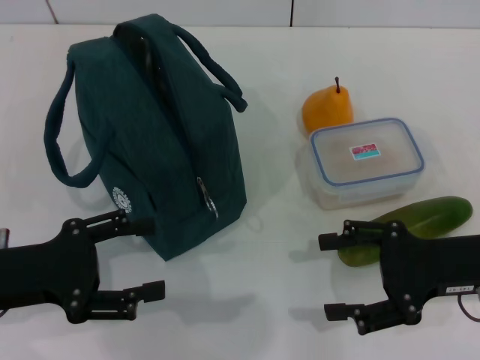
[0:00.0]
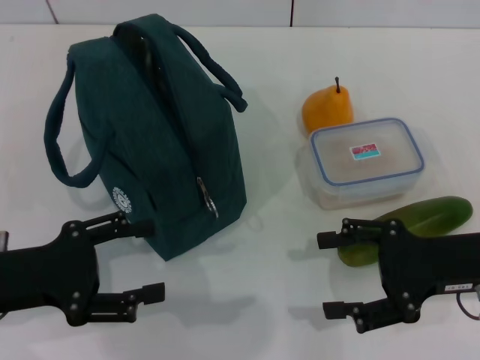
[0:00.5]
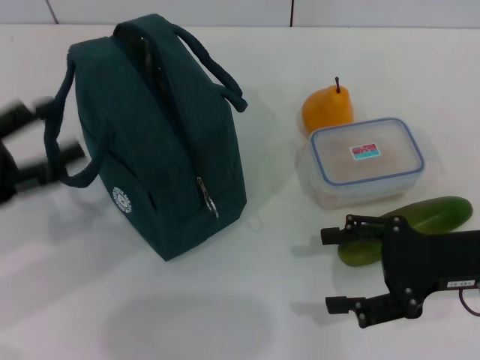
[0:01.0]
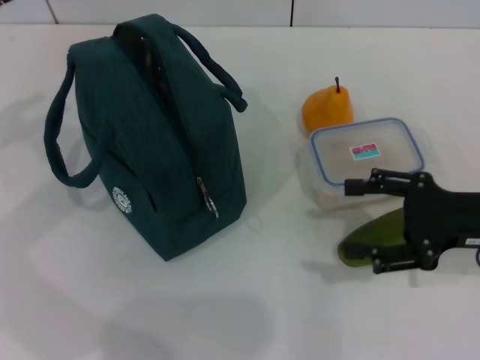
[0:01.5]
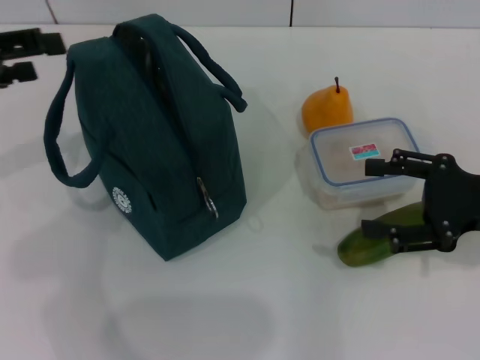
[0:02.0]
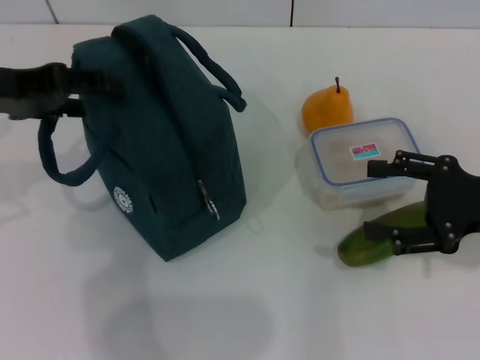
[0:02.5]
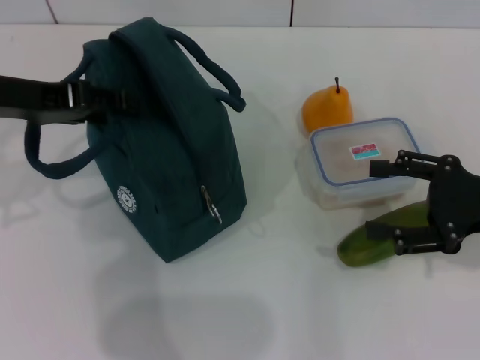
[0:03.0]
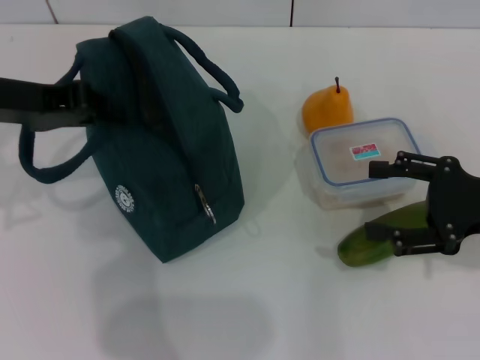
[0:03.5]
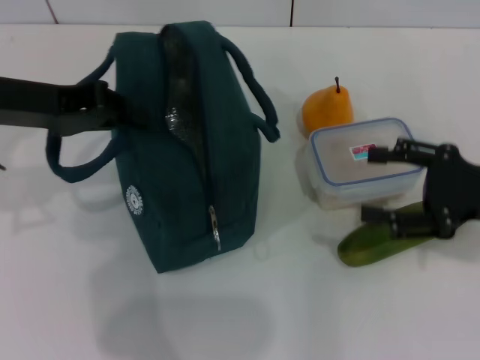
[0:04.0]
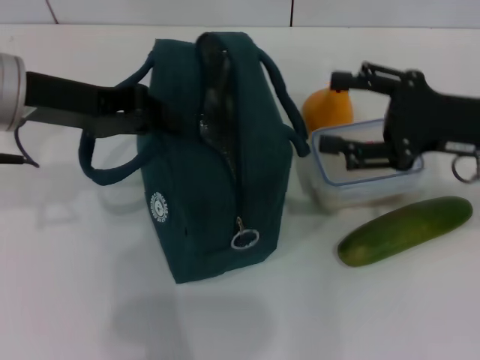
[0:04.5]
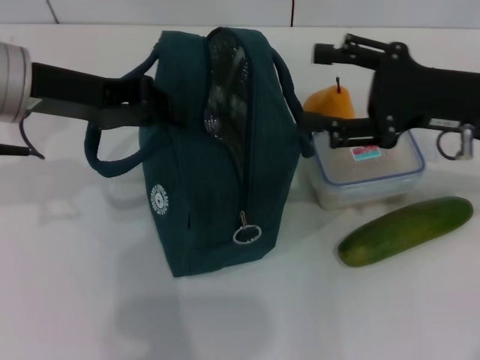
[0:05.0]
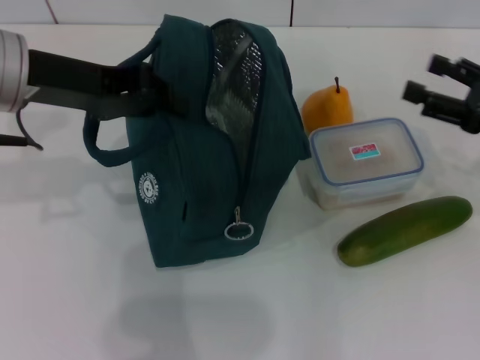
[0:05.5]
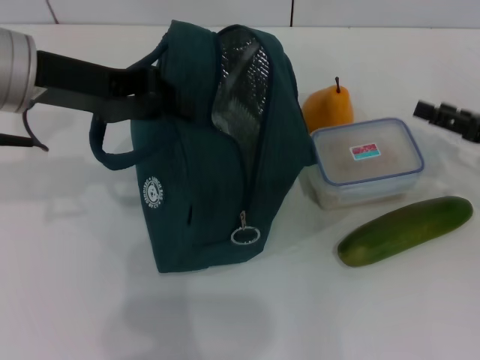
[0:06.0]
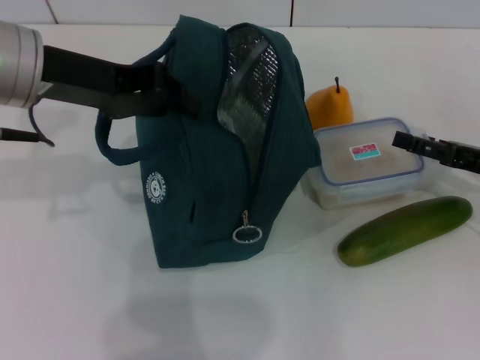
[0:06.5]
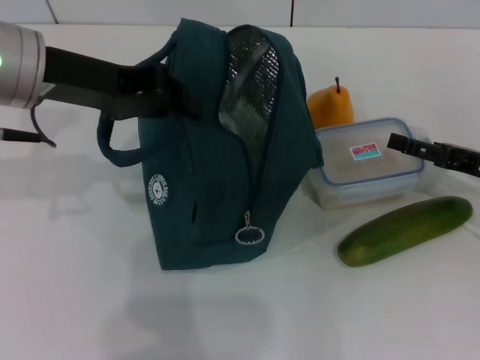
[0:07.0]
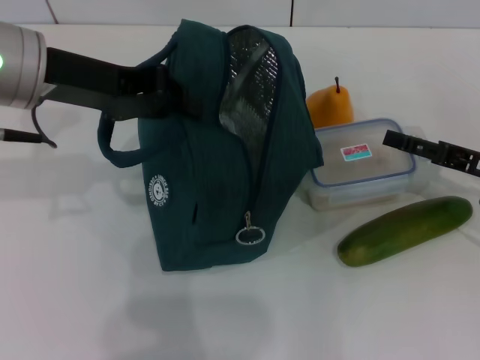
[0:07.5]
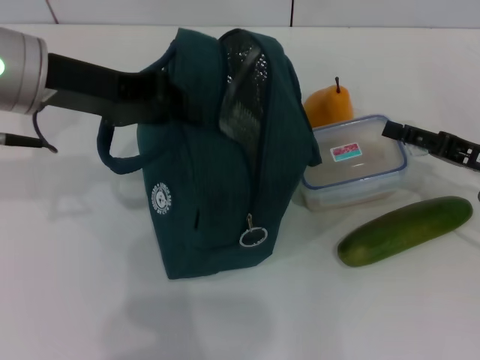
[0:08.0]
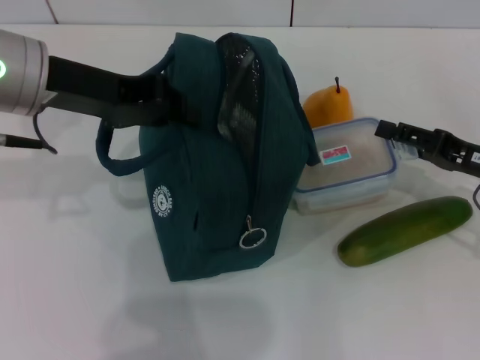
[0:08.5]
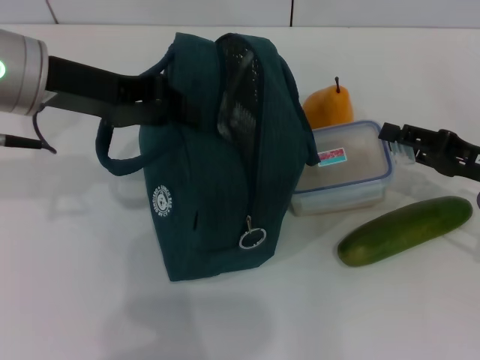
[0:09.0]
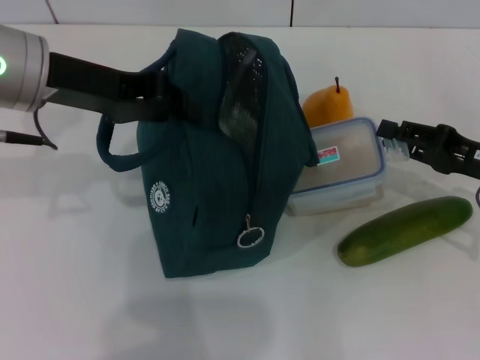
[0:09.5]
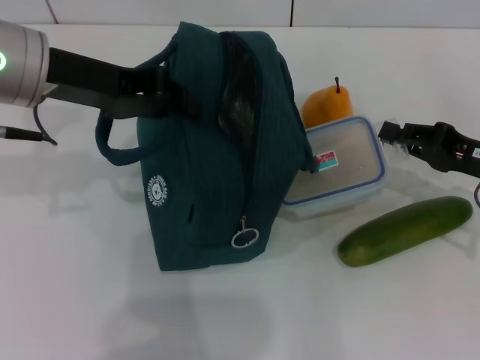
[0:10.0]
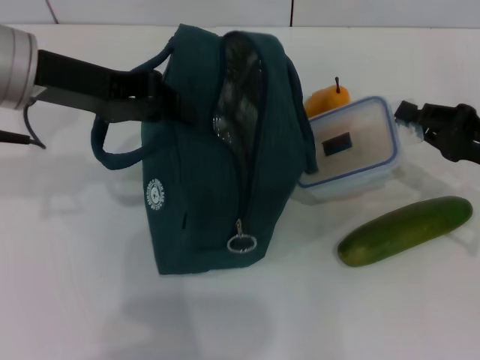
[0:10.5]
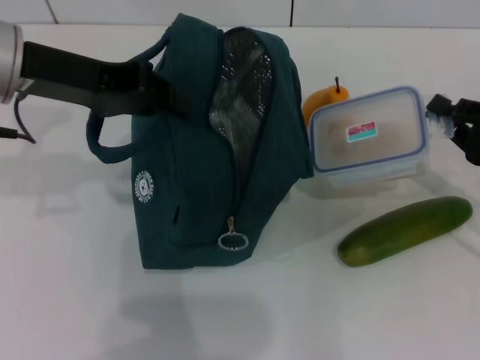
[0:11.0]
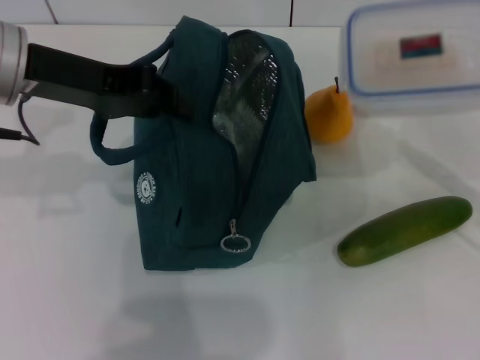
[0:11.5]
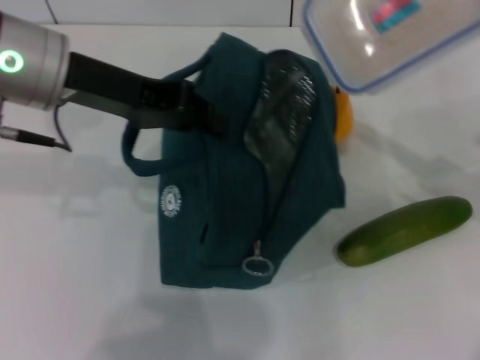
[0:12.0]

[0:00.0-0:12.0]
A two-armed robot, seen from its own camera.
Step, 0:00.0 to 0:03.0: Hold the lunch bag with your left hand.
Step, 0:03.5 to 0:10.0: Pick up the lunch box with your right hand.
0:00.0 to 0:02.0: The right gripper moves some 5 cm. Meanwhile the left gripper shifts about 15 cm upward and forward.
0:02.0 to 0:04.0: The left gripper shifts some 5 cm to the right, and closes up.
0:04.0 to 0:06.0: The right gripper changes place by some 5 cm.
0:06.0 to 0:08.0: The grippers stay close to where they were, moving slightly.
0:08.0 to 0:10.0: The right gripper closes its fingers.
0:10.0 to 0:12.0: The right gripper moves upward, some 10 cm.

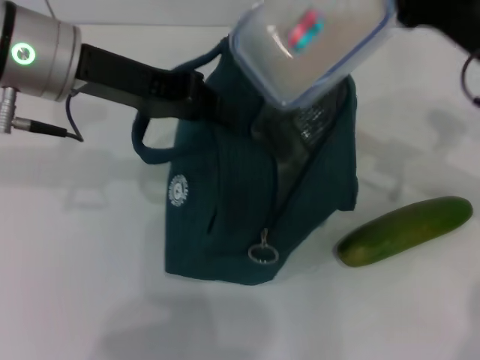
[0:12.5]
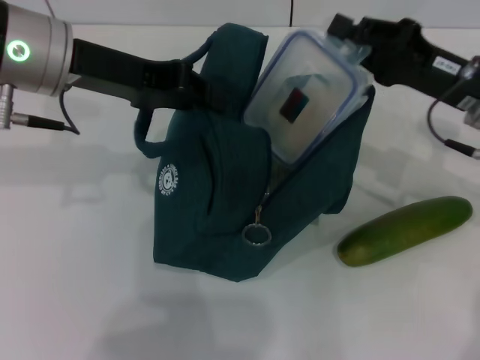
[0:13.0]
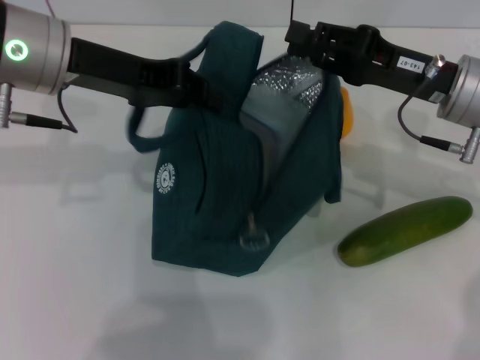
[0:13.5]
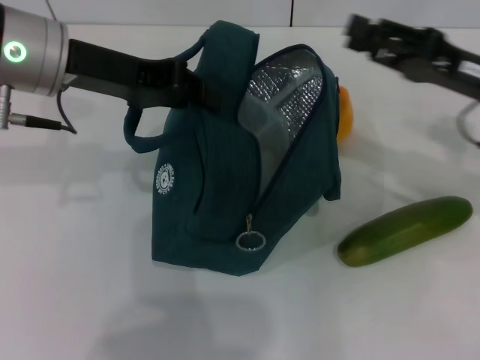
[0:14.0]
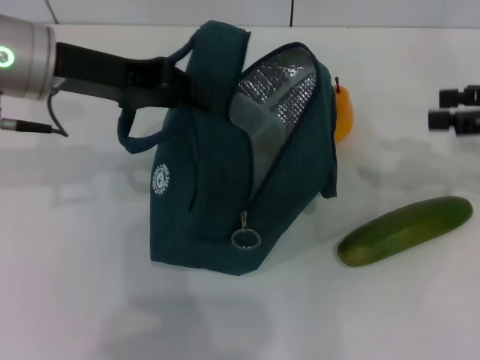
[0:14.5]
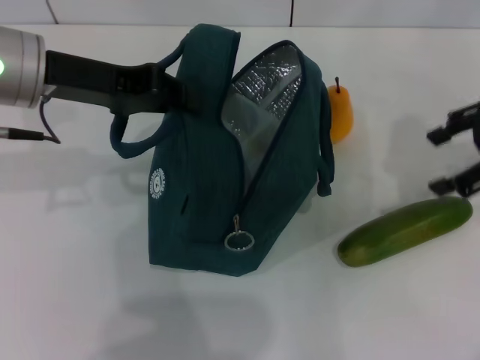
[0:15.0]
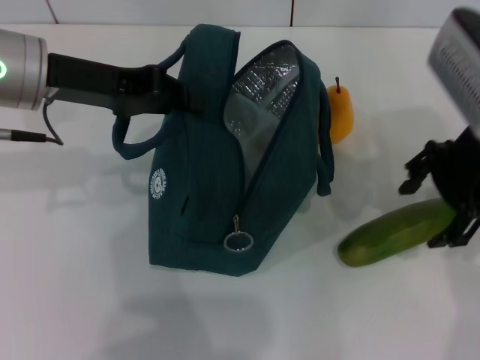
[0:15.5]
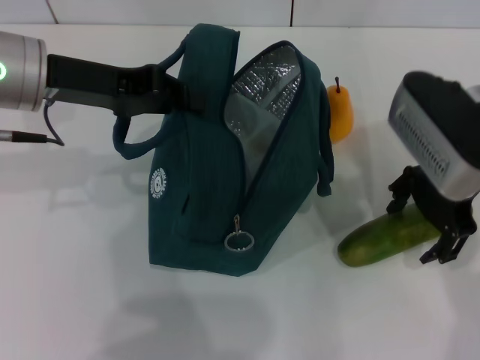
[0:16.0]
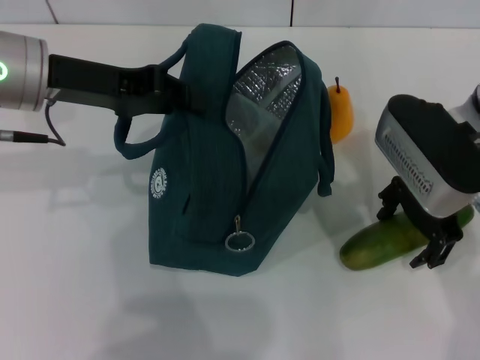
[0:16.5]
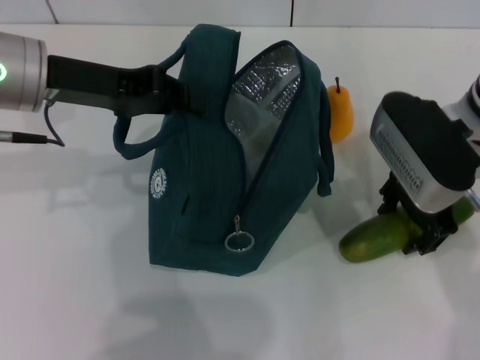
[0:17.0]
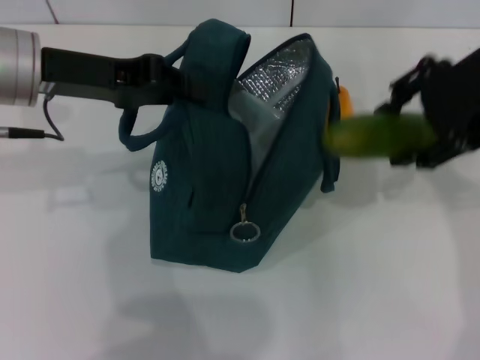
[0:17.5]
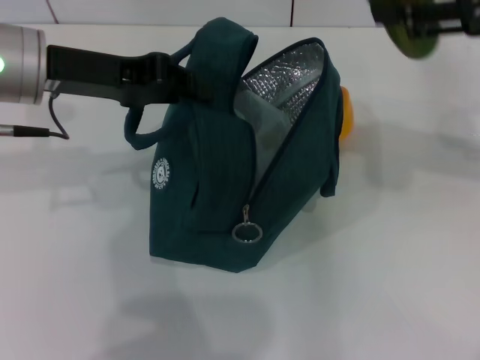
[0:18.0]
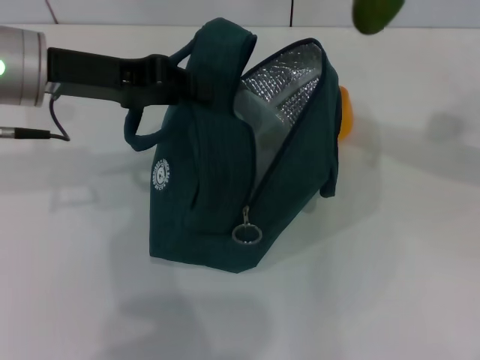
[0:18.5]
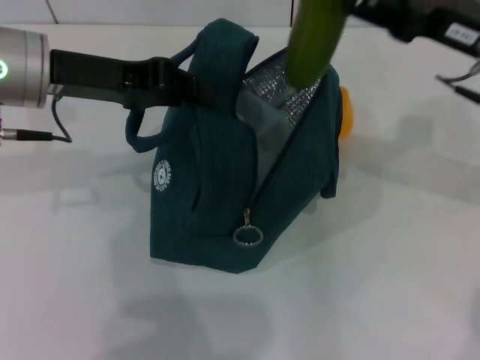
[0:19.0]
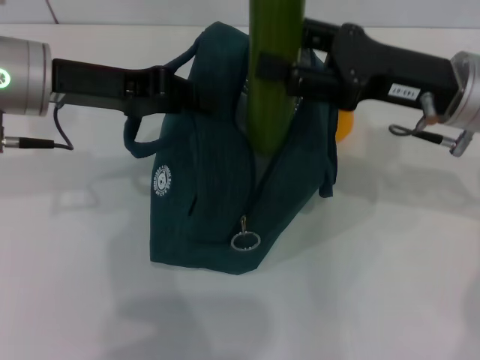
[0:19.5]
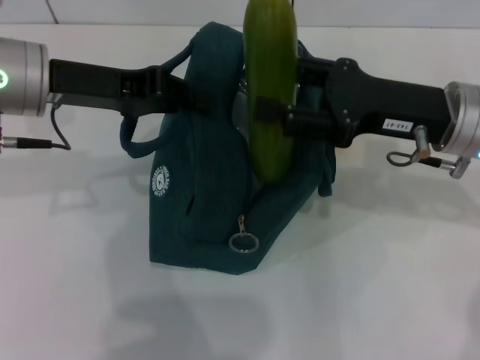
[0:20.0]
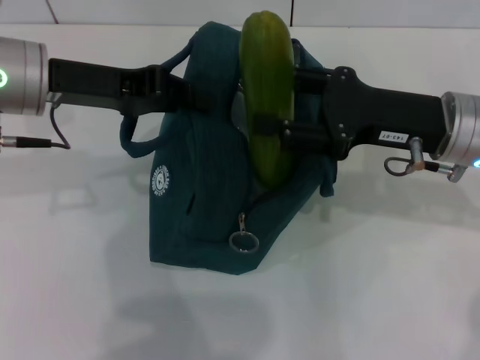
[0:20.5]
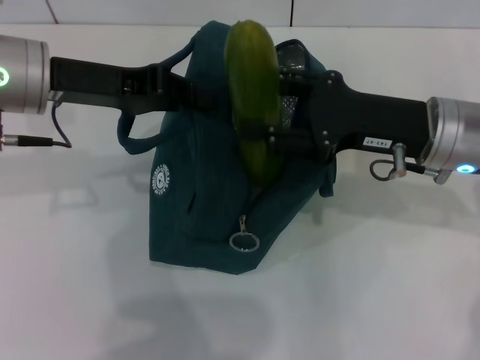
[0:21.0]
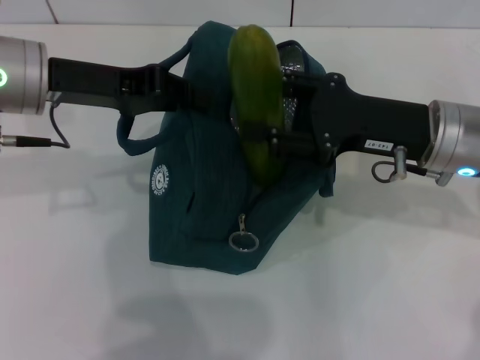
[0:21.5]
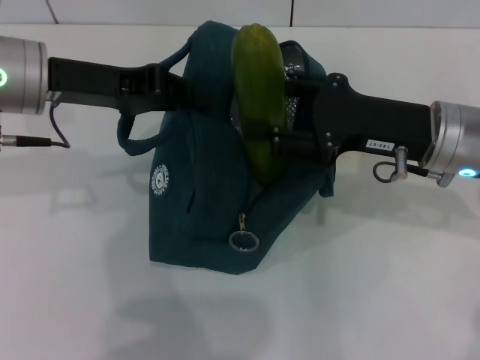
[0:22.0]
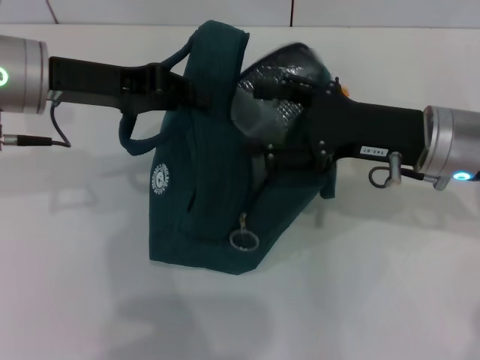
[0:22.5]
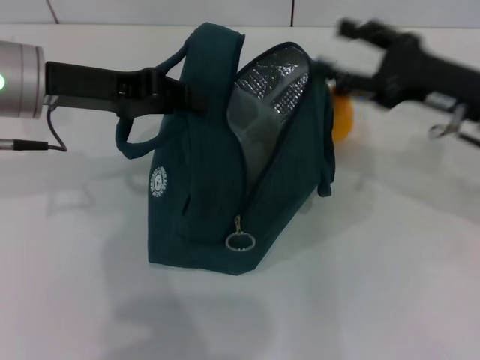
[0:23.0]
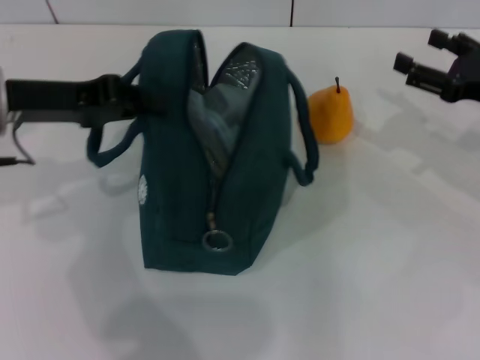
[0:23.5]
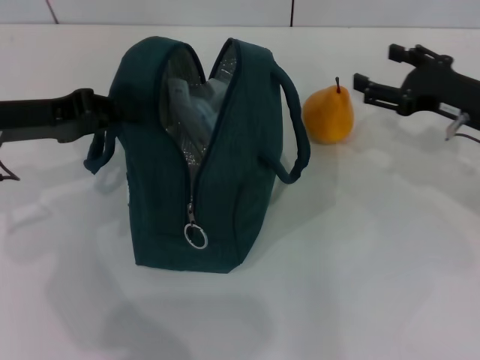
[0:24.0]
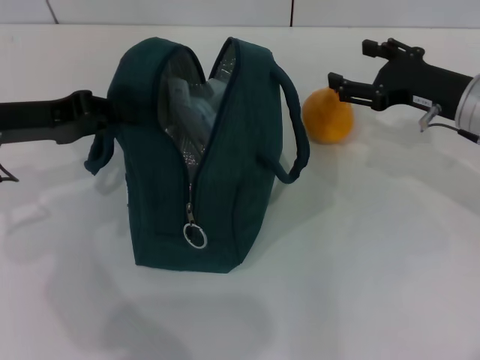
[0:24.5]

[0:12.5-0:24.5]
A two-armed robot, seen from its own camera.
Step, 0:14.0 to 0:16.5: Pick up the cucumber with your right hand.
Step, 0:17.0 to 0:22.5: Put the cucumber into the lunch bag with your right hand.
0:12.5 to 0:14.5: The right gripper travels to the right by approximately 10 cm, and opens.
0:14.5 to 0:16.5: The right gripper travels to the left by roughly 15 cm.
0:16.5 to 0:18.5: The right gripper heads to the right and upward, covering some 10 cm.
0:18.5 to 0:20.5: The right gripper travels downward and to the left by some 10 cm.
0:20.5 to 0:22.5: The grippers make only small movements.
0:22.5 to 0:24.5: The left gripper is displaced to the left and downward by about 10 cm. The right gripper moves to the right and forward, roughly 10 cm.

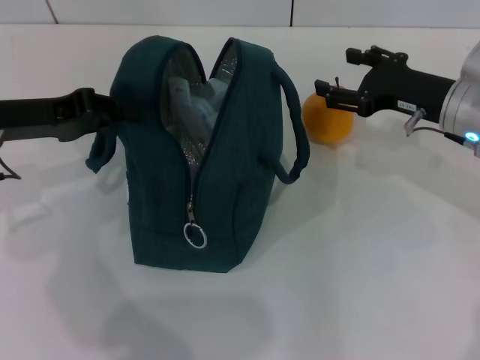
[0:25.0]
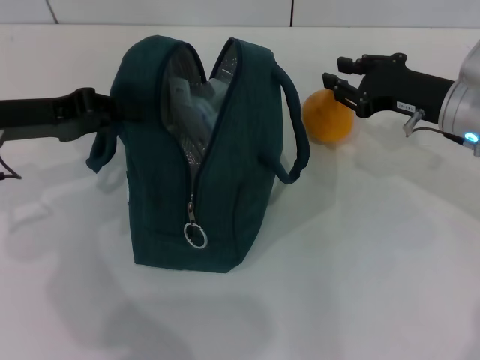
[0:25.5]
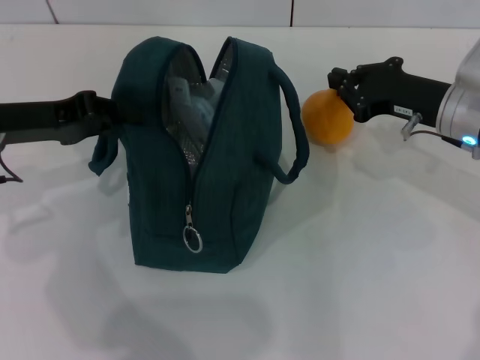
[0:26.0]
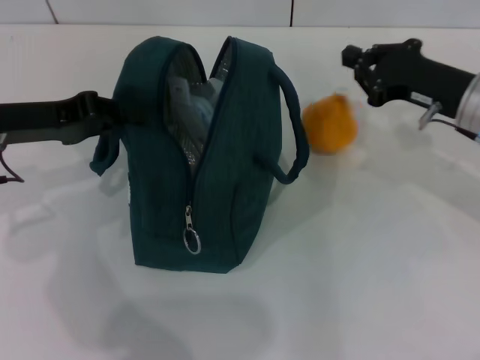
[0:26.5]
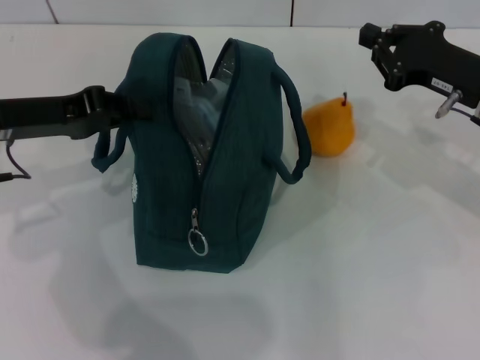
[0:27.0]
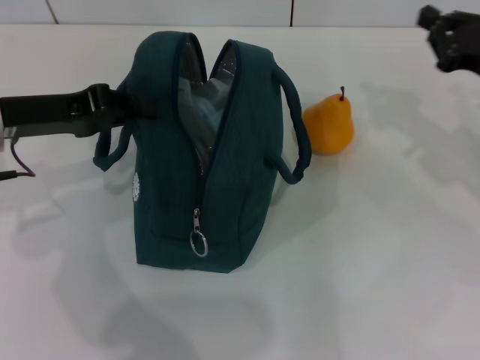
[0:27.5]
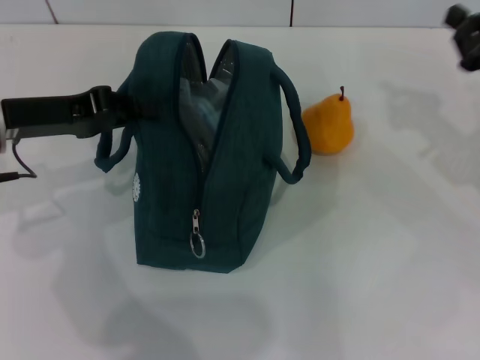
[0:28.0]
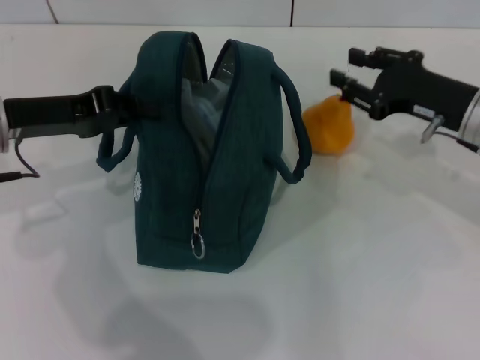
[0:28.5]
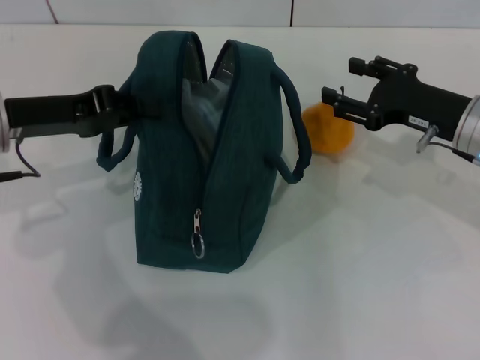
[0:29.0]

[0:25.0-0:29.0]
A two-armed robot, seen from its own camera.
0:25.0 to 0:27.0: The right gripper closes up.
0:27.0 to 0:29.0: The right gripper opens.
